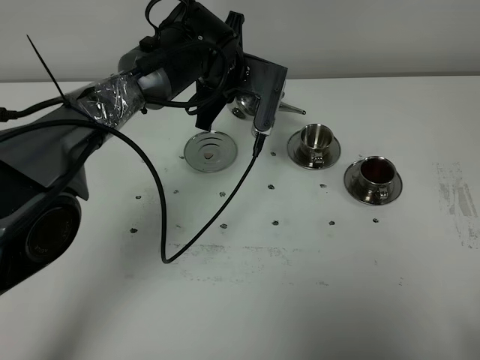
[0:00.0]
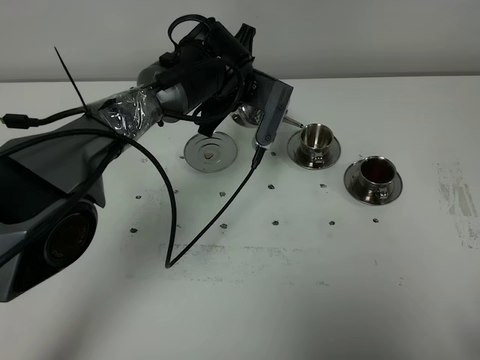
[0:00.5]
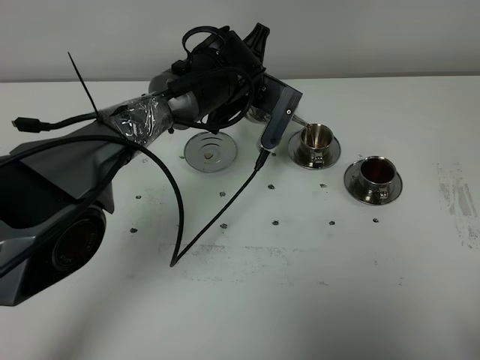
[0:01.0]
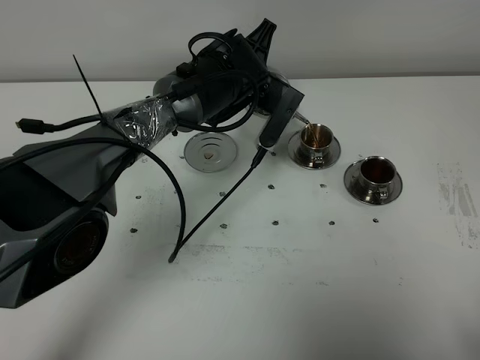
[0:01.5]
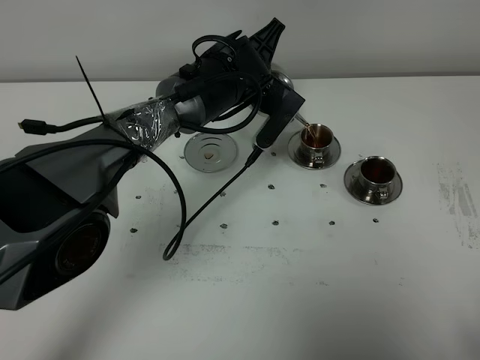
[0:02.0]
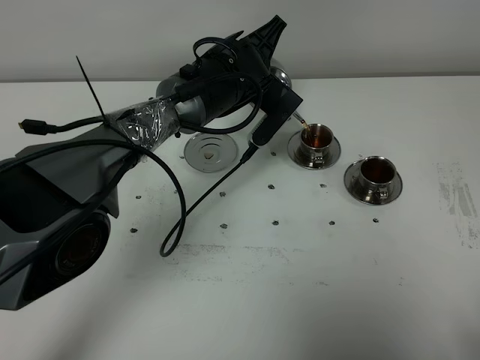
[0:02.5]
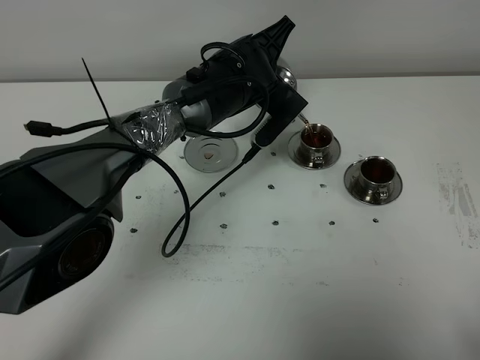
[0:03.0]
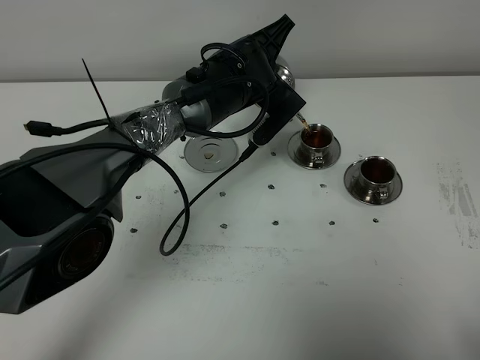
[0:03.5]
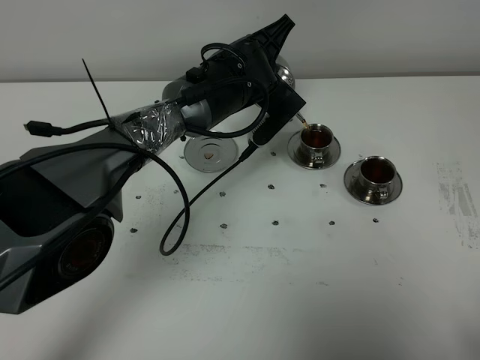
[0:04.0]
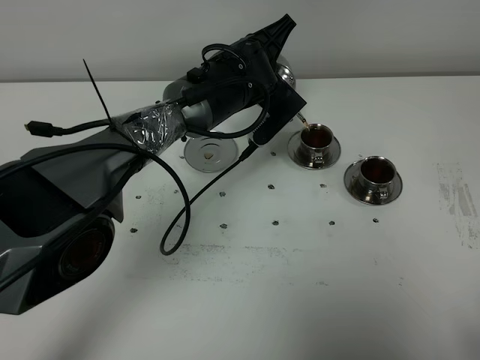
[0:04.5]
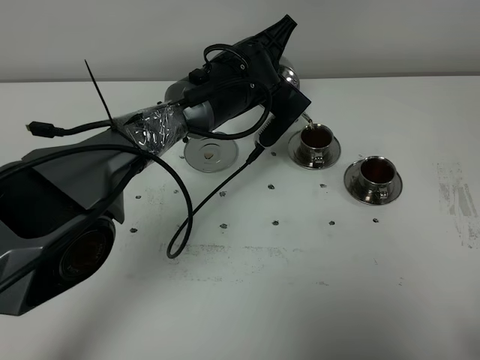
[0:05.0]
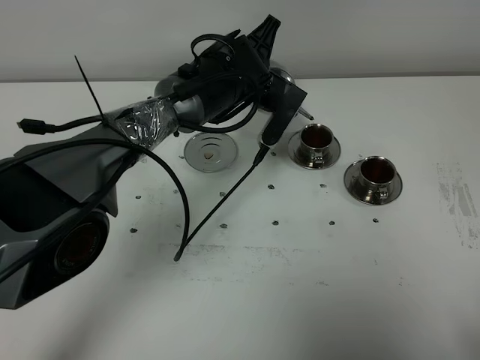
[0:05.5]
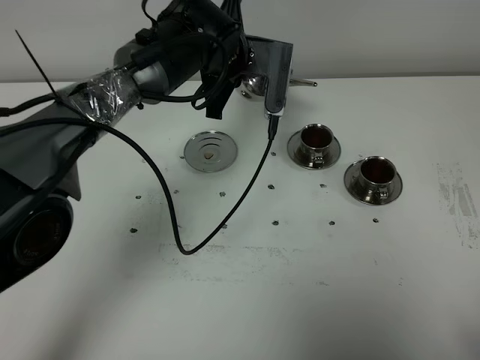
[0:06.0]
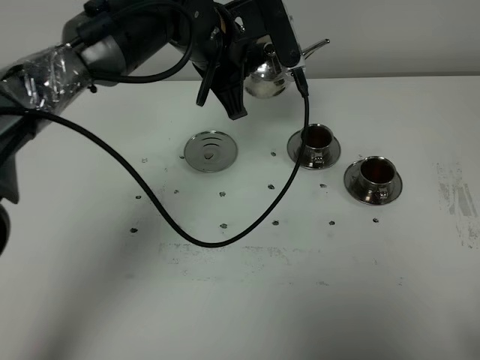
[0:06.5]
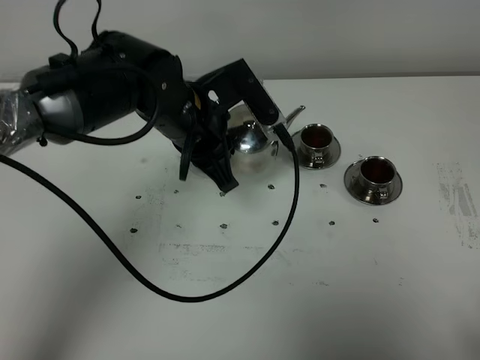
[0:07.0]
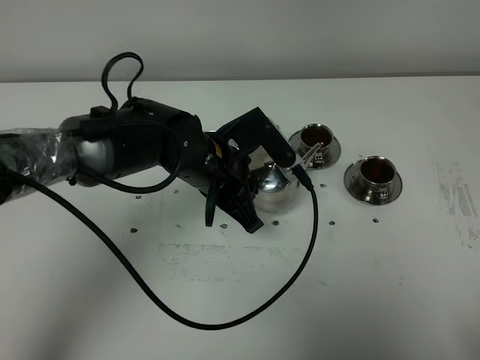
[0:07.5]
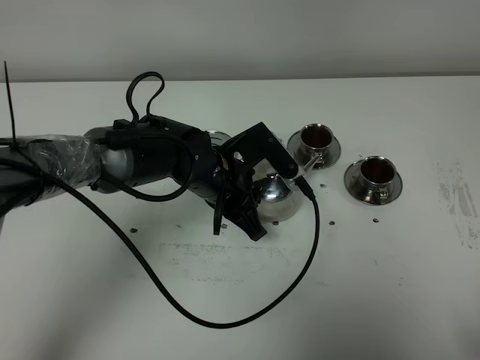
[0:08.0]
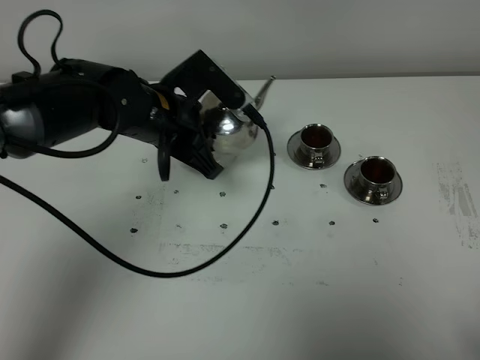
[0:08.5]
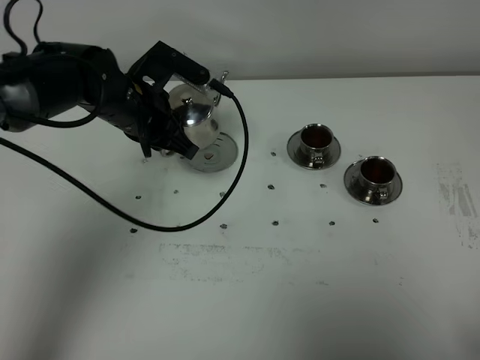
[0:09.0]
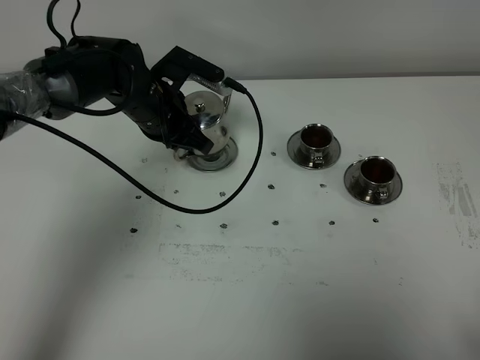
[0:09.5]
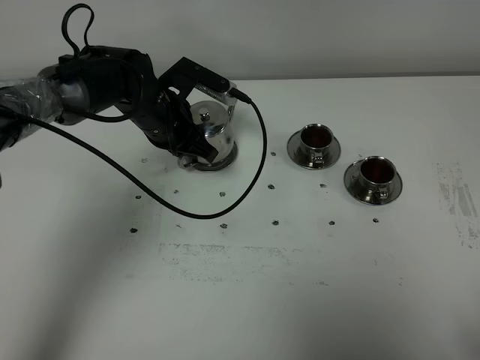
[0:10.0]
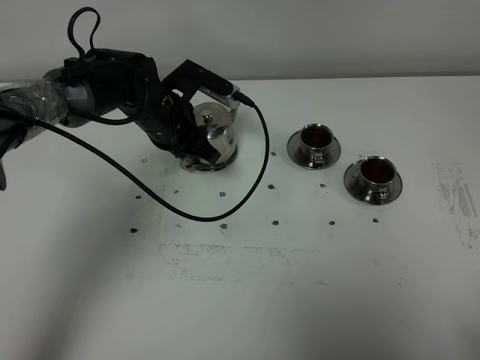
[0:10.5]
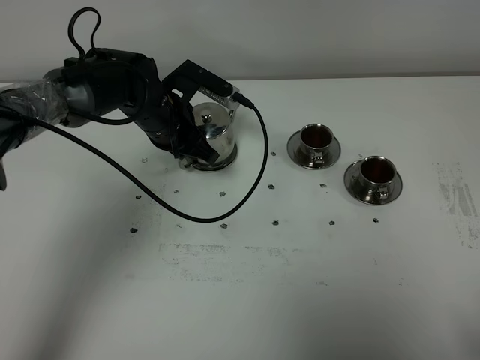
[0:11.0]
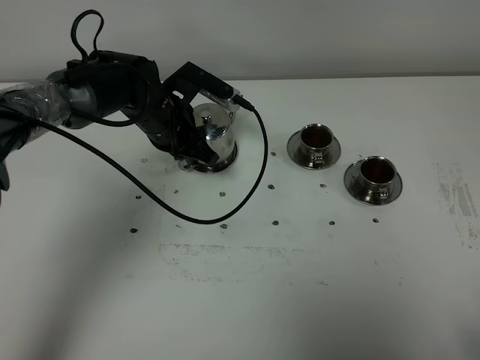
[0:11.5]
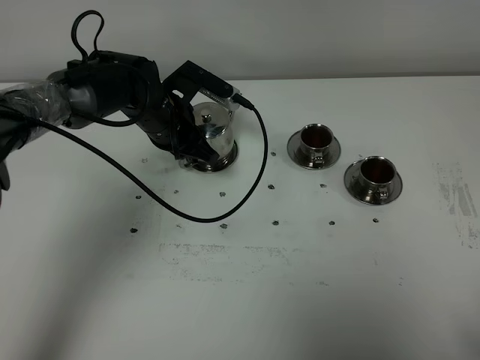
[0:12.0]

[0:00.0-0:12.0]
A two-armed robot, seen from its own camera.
Task of the whole recording: grasp the stainless steel teapot and pour the tea into the two stainless steel teacups one by one, put the stainless steel teapot back in its original place.
Step, 0:00.0 to 0:05.5: Pour tea into the teacup with the left gripper.
0:02.0 to 0:04.0: There are only small adjustments of the grippers.
0:04.0 to 0:06.0: The left gripper changes place by approximately 5 cm.
0:06.0 to 0:08.0: The left gripper is displaced backward and downward by roughly 15 cm.
0:08.0 to 0:10.0: The left gripper travels forward and to the left by approximately 10 cm.
0:10.0 to 0:12.0: The two grippers keep their place.

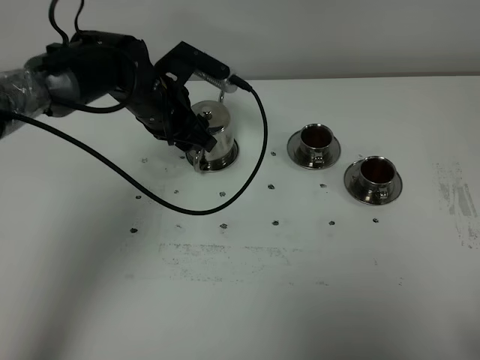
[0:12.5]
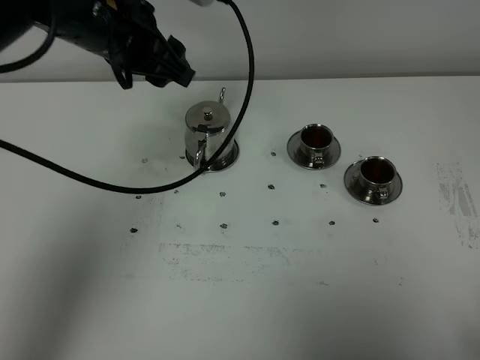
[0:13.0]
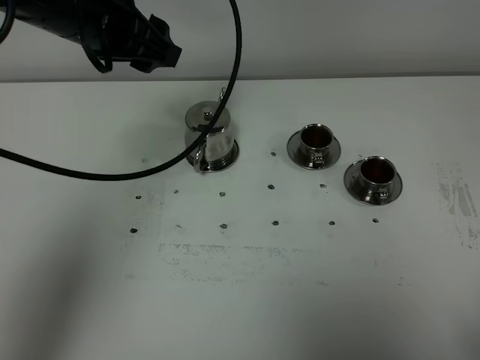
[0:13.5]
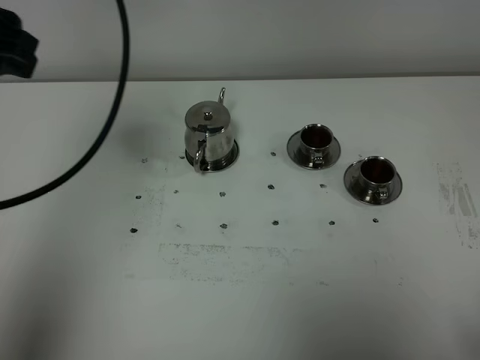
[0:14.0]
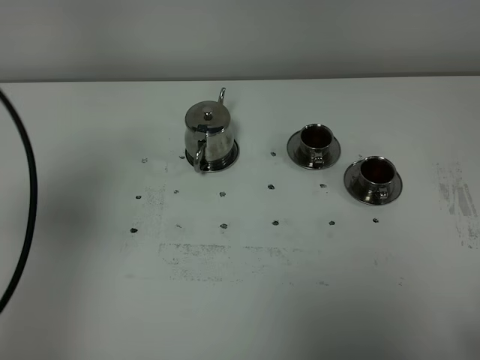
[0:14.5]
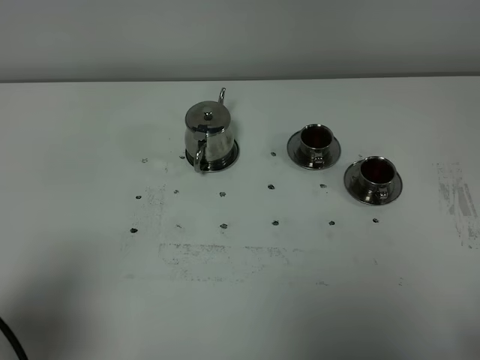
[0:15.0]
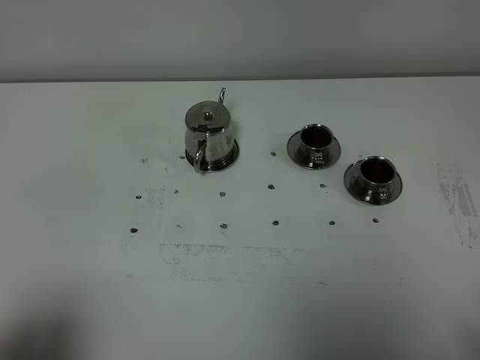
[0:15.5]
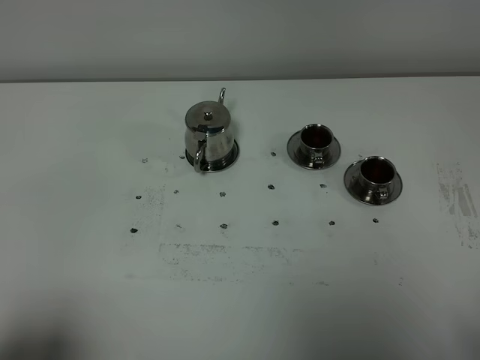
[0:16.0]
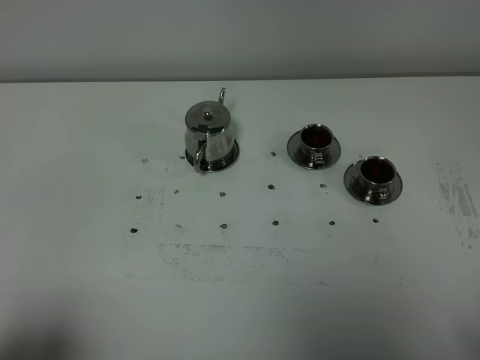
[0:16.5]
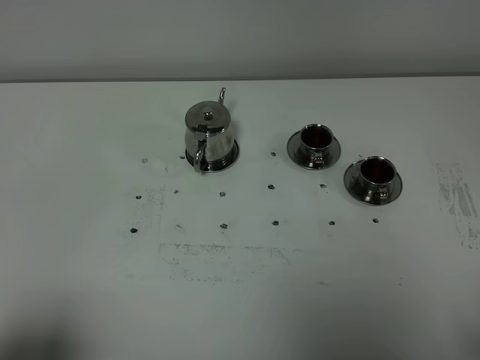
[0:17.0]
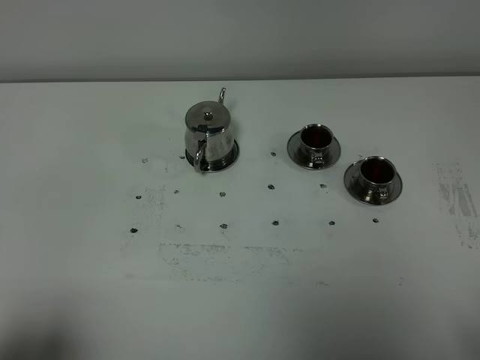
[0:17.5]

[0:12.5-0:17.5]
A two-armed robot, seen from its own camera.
Task of the whole recording: grasp the stainless steel teapot and pour the tea into the two stainless steel teacups one by one, put the stainless steel teapot back in its original place.
0:12.5 to 0:15.0: The left gripper goes about 40 cm backward and to the left.
0:15.0 to 0:17.5: The left gripper shifts roughly 5 cm backward.
